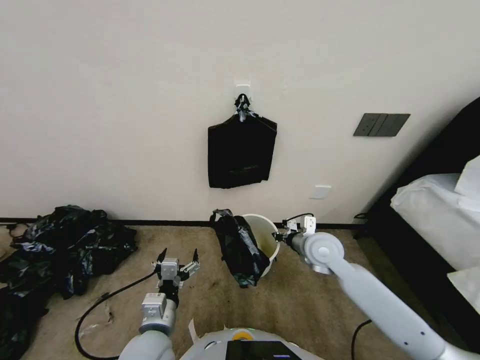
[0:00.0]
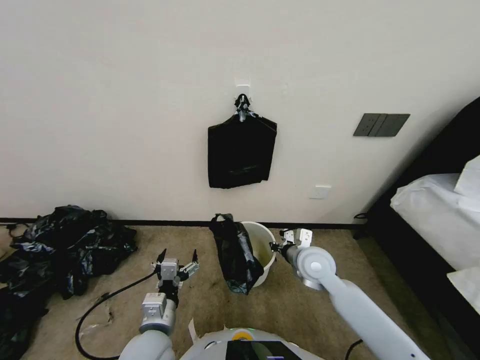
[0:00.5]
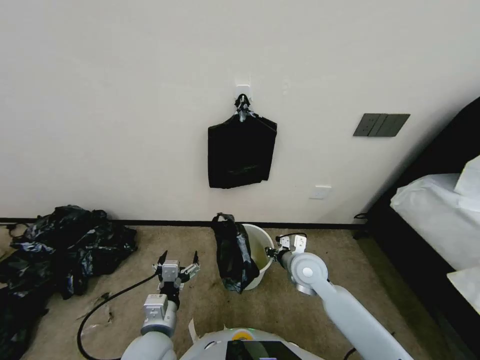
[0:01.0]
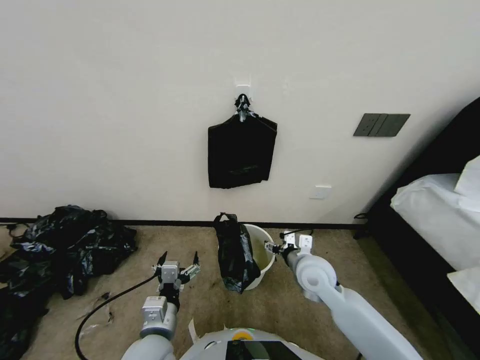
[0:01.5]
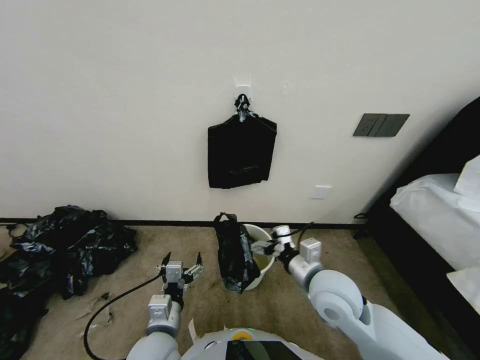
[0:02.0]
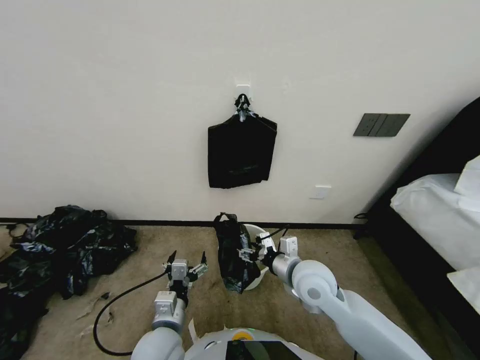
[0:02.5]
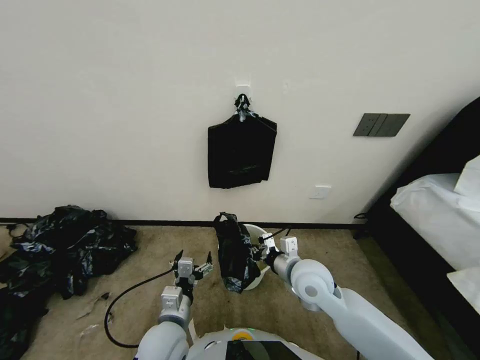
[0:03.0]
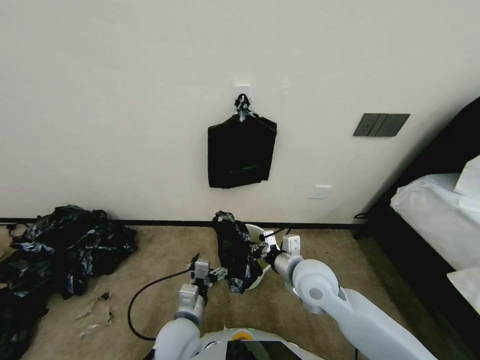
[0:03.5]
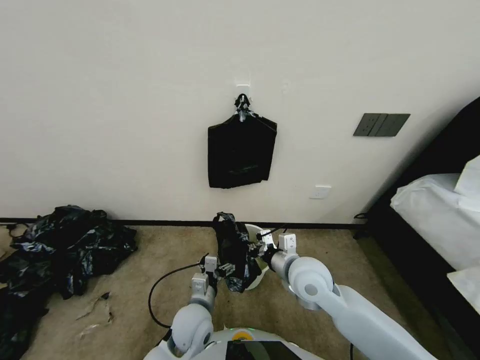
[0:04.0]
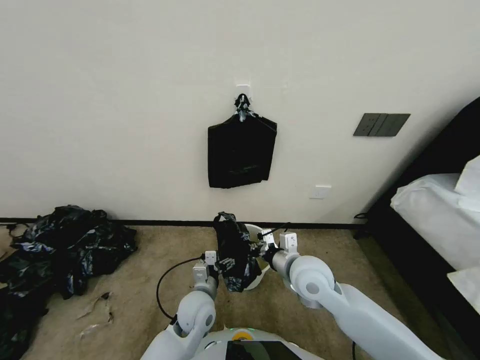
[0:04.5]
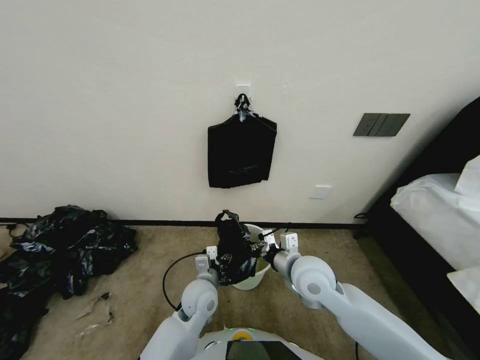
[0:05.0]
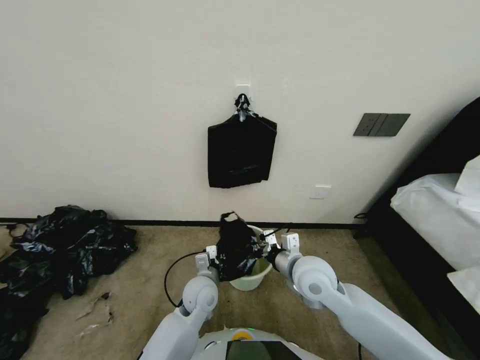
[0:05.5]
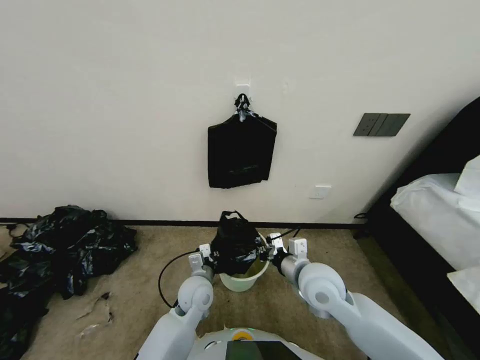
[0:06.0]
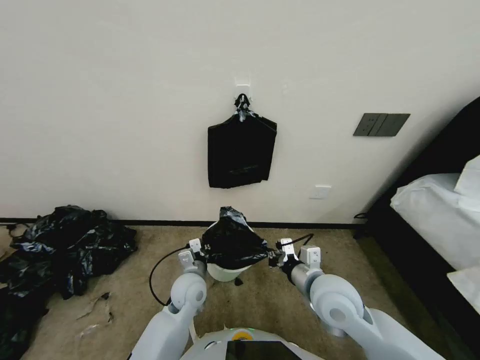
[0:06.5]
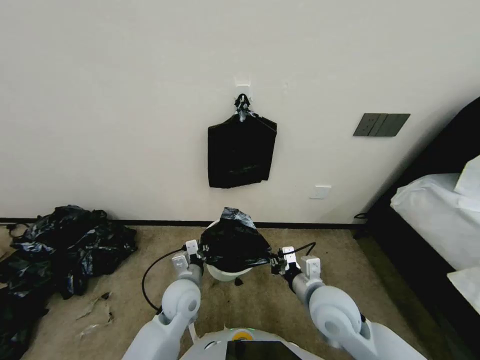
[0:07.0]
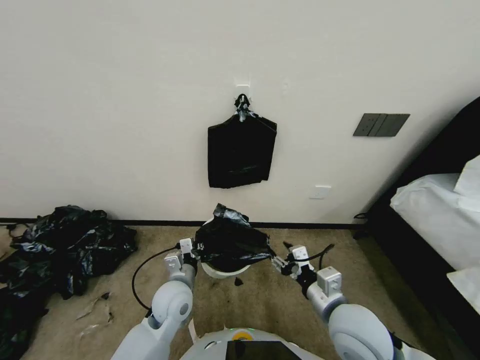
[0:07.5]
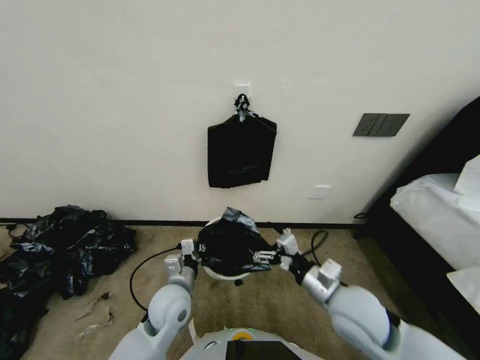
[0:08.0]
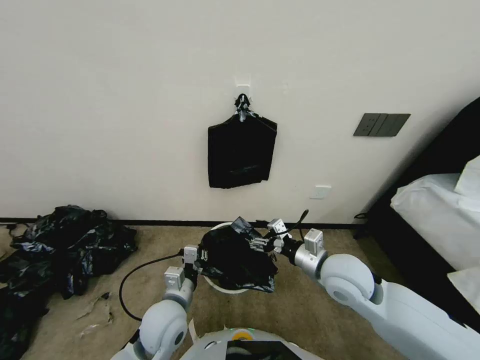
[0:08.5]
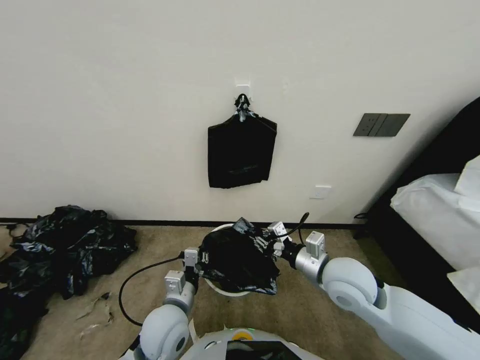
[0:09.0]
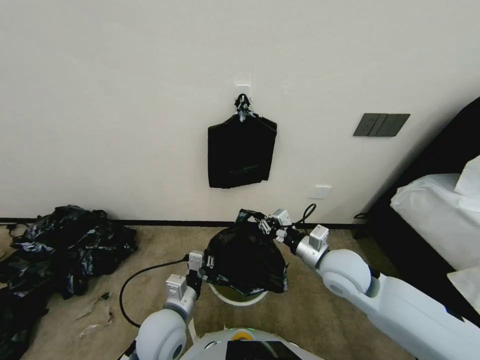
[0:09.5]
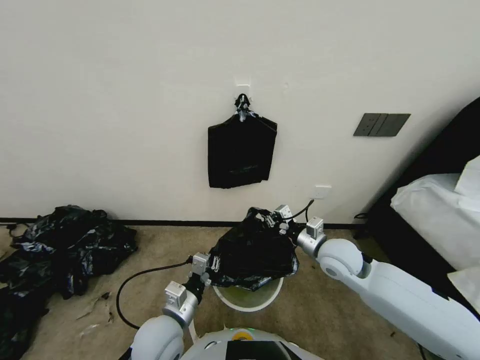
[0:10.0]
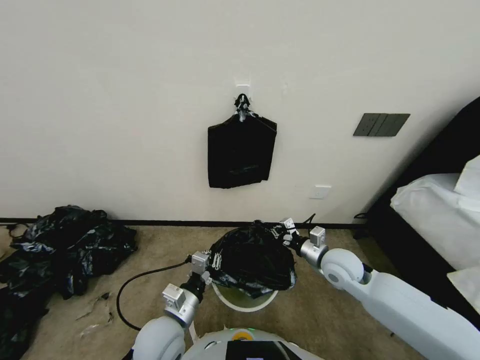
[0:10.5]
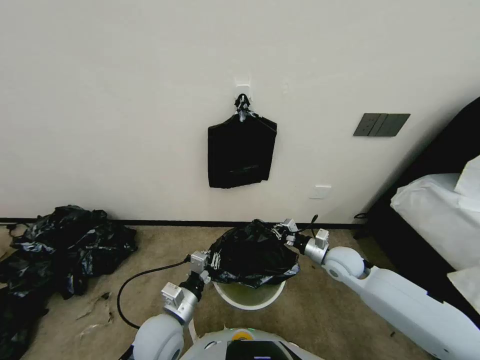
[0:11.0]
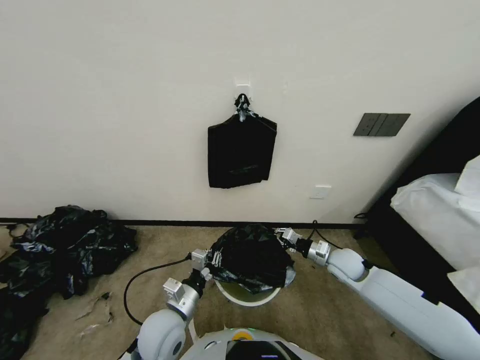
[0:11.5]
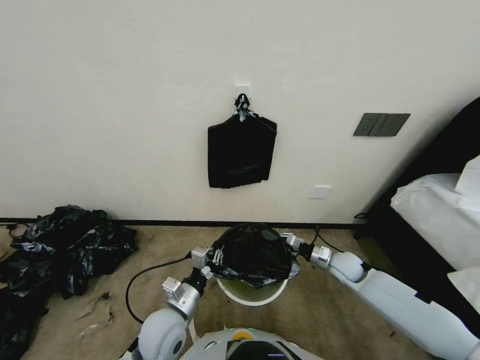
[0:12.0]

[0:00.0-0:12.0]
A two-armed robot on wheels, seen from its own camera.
Task of the whole recording: Place a trash bag onto the trash bin.
0:00.0 to 0:02.0: The right gripper is displaced backward by about 10 cm, and opens.
0:02.0 to 0:04.0: The left gripper goes roughly 10 cm forward, to the right and downward. Meanwhile the right gripper changes place by some 5 cm, and closes up.
0:04.0 to 0:06.0: The left gripper is displaced forward by approximately 10 cm, and closes up.
0:06.0 to 0:08.0: The left gripper travels to the left by some 5 cm. Meanwhile the right gripper moves backward, some 10 cm, and opens.
0:08.0 to 0:10.0: The left gripper shifts roughly 10 cm backward. The right gripper goes roughly 15 cm forward, and closes.
0:10.0 to 0:12.0: The right gripper is displaced downward and to the right by approximately 20 cm.

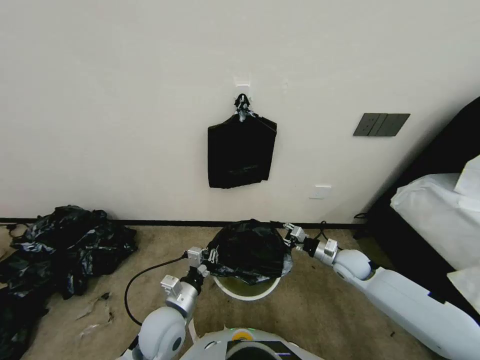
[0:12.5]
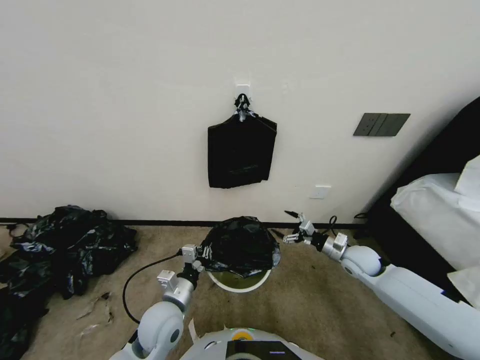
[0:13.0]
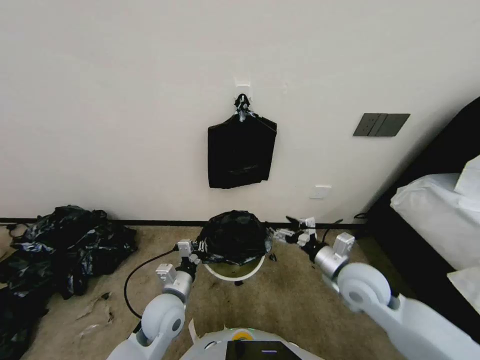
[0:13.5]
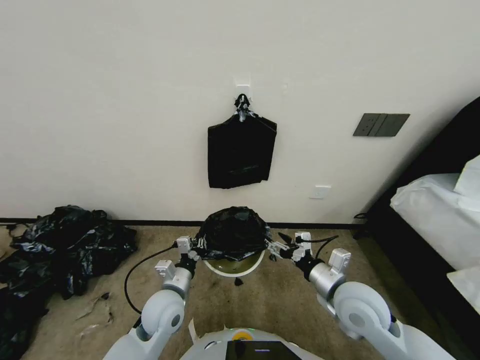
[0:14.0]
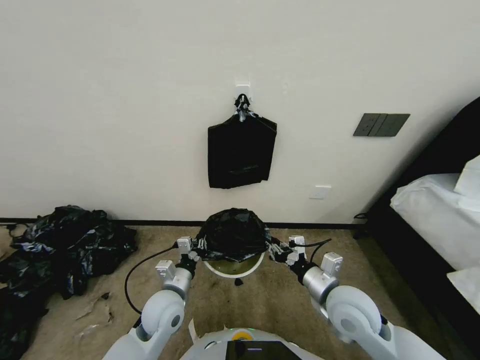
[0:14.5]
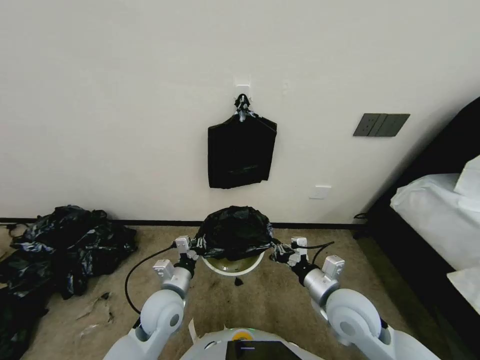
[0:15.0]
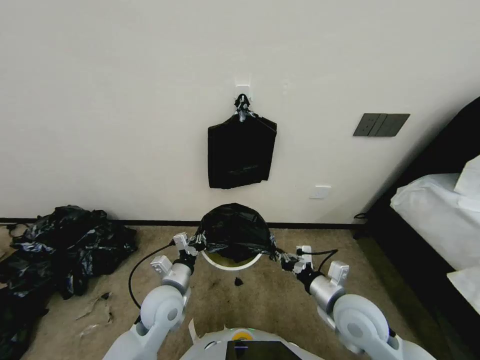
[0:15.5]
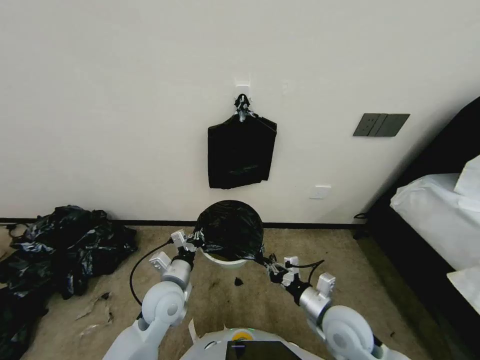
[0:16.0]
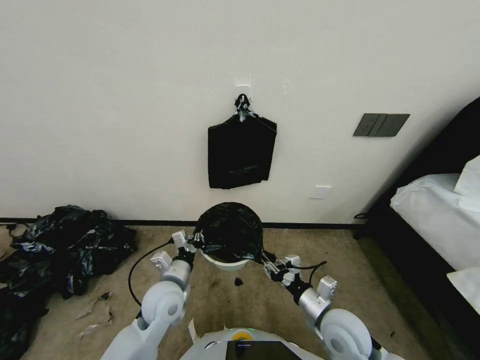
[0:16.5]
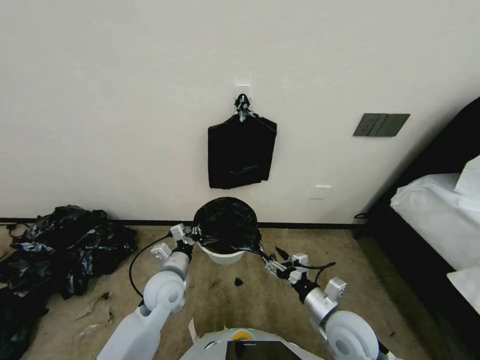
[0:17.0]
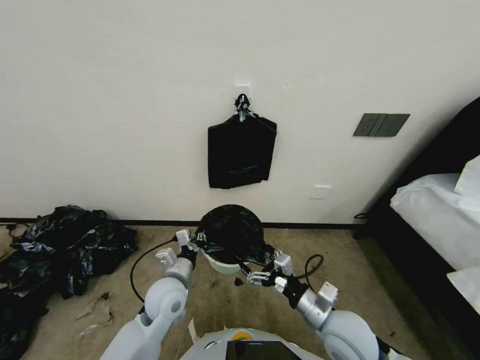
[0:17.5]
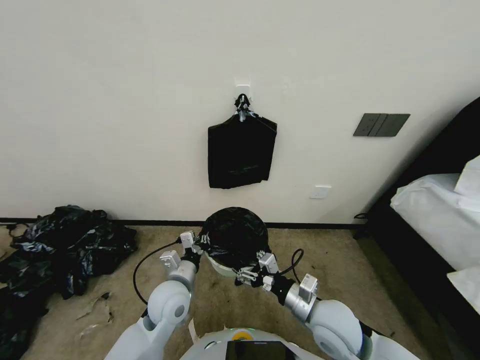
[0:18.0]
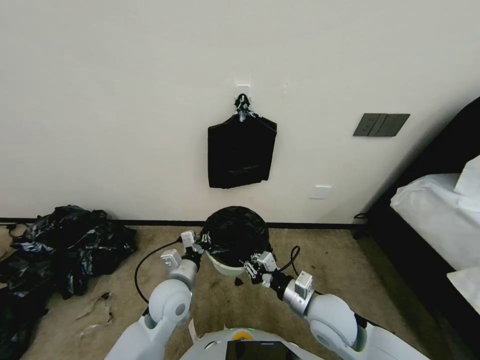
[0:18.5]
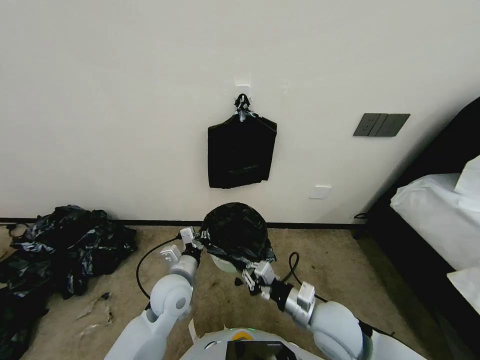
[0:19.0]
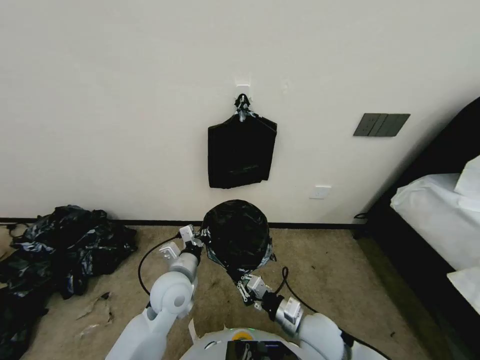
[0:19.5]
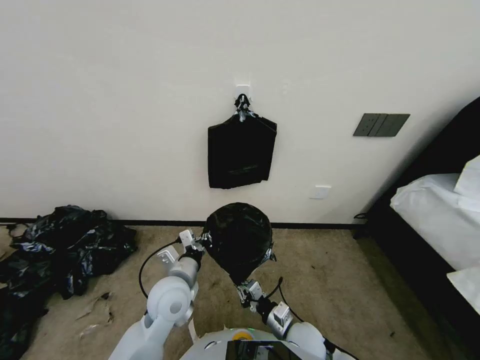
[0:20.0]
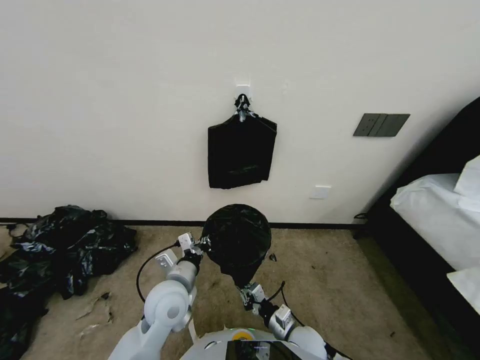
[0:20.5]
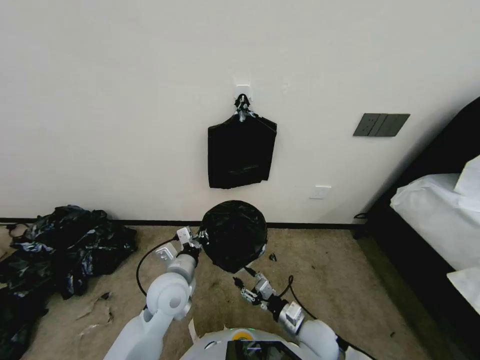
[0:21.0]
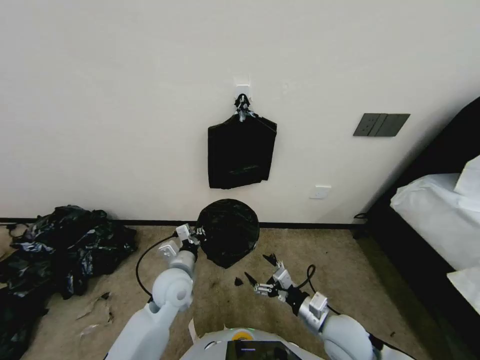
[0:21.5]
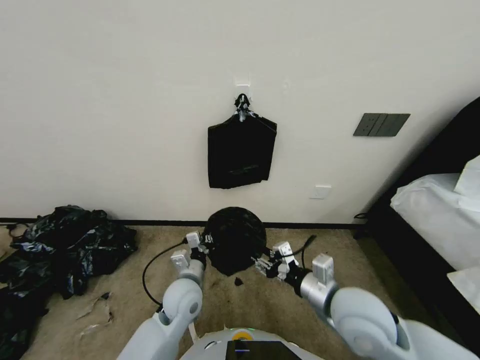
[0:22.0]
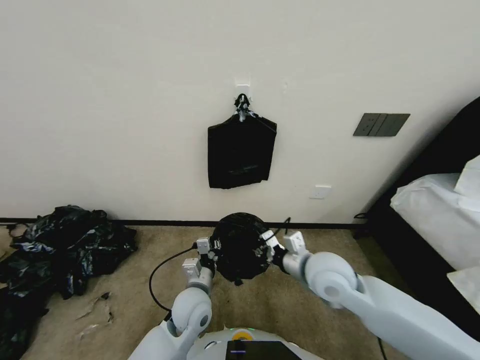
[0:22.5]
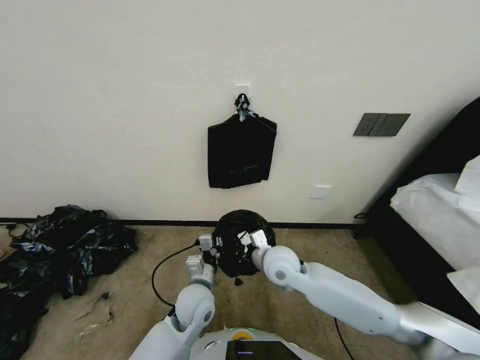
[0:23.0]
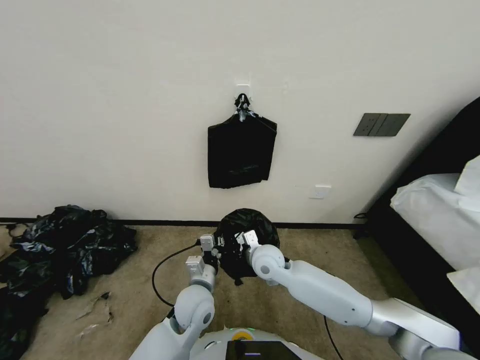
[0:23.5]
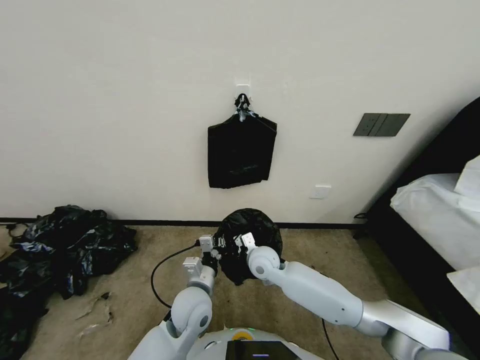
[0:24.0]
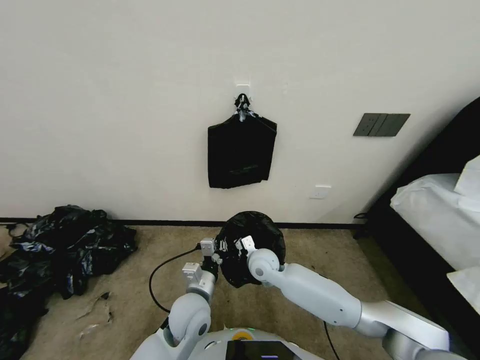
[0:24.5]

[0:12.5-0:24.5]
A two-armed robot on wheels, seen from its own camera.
Task of the whole recording: Place a trash bag onto the trash bin.
0:12.5 to 0:14.5: The right gripper is displaced backward, to the left and upward by approximately 20 cm, and opens, then closes once more.
0:14.5 to 0:16.5: The right gripper heads downward, covering about 5 cm.
0:16.5 to 0:18.5: The right gripper ends up approximately 5 cm from where it was, and opens, then closes again.
0:18.5 to 0:20.5: The right gripper moves downward, some 15 cm.
0:20.5 to 0:22.5: The right gripper moves upward and forward, some 25 cm, and opens, then closes again; the left gripper travels downward by about 5 cm.
0:22.5 to 0:24.5: The right gripper is displaced downward, to the left and forward by approximately 20 cm.

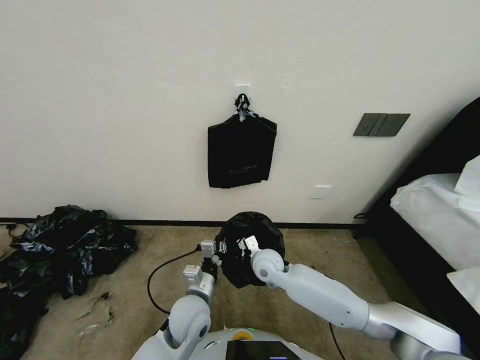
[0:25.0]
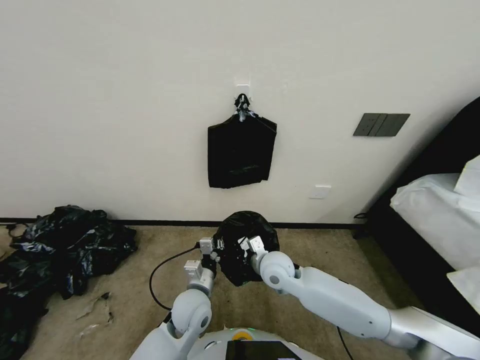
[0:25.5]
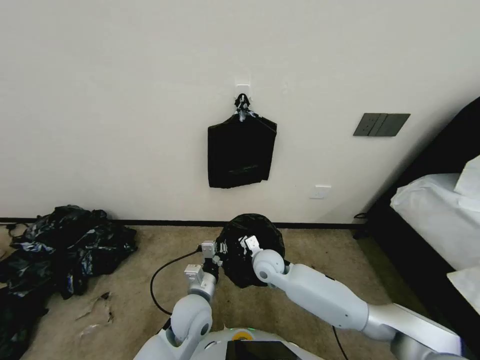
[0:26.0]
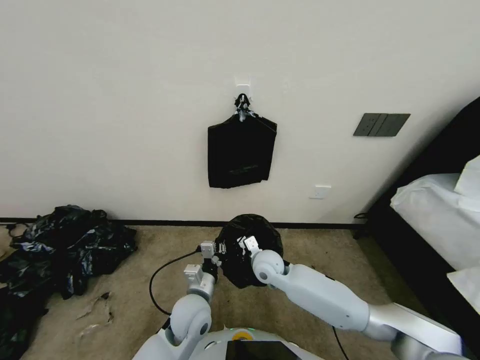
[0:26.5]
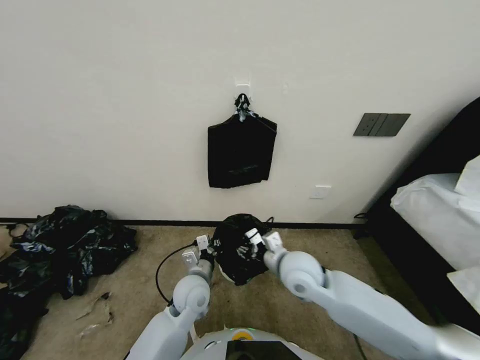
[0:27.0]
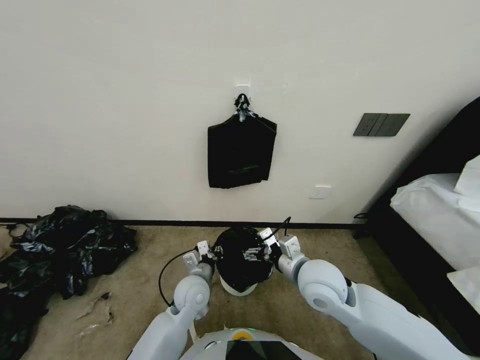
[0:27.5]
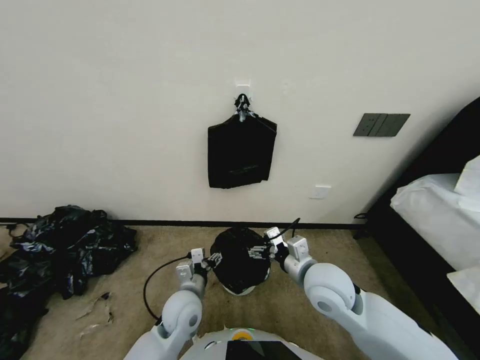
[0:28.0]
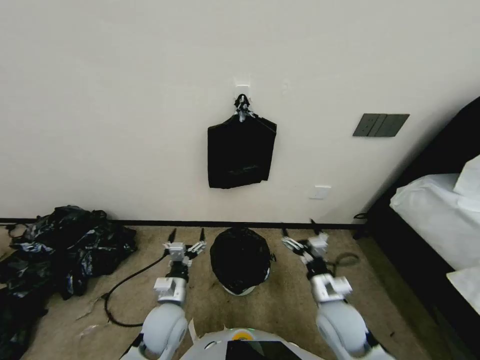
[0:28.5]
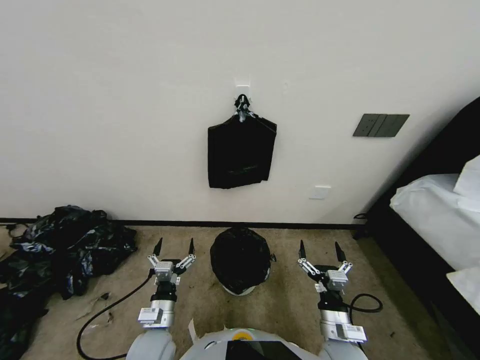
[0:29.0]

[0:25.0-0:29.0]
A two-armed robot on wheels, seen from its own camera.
Task of the whole recording: Place a trash bag onto the trash bin.
0:25.0 to 0:27.0: The right gripper goes up and down, roughly 10 cm each way, reversing 2 times, and opens.
0:27.0 to 0:29.0: The right gripper is displaced backward, to the right and downward by about 25 cm, and opens its fingers, while the left gripper travels backward and to the left by approximately 15 cm, and opens up.
